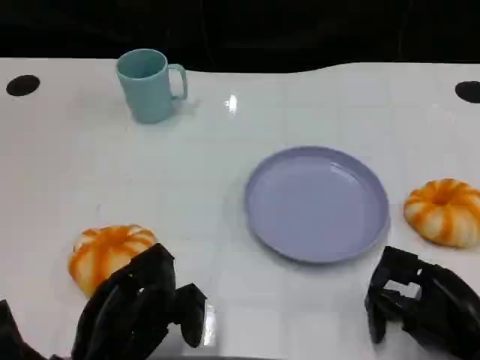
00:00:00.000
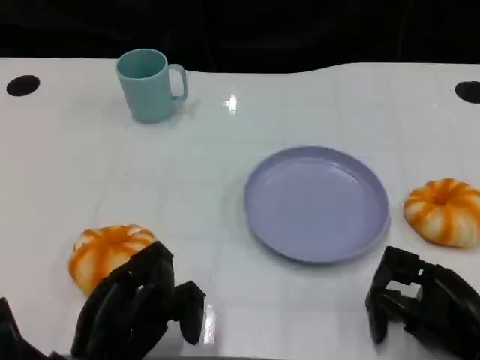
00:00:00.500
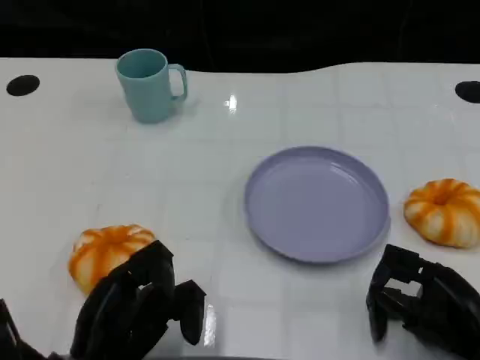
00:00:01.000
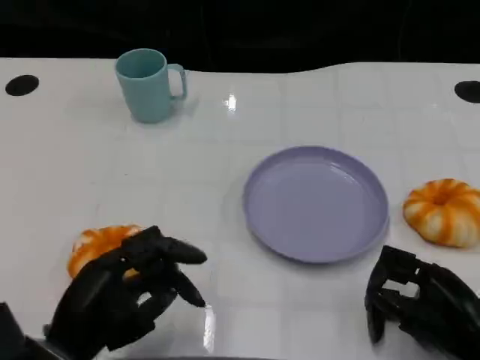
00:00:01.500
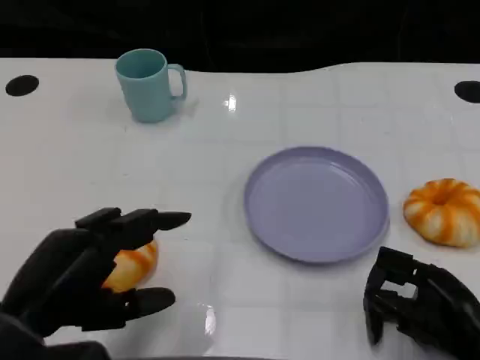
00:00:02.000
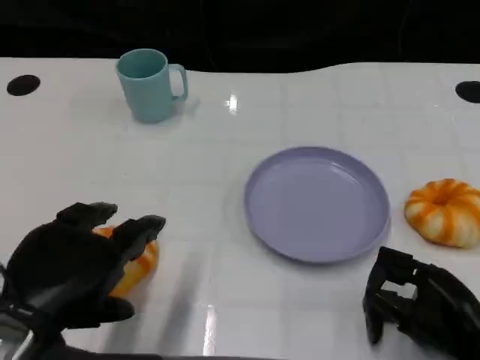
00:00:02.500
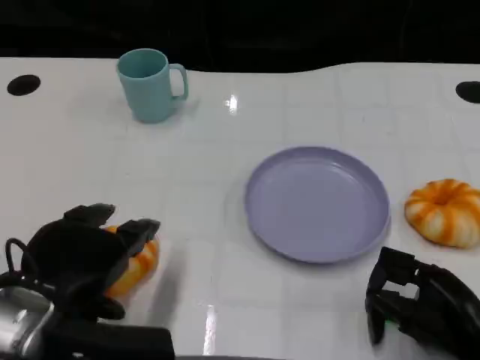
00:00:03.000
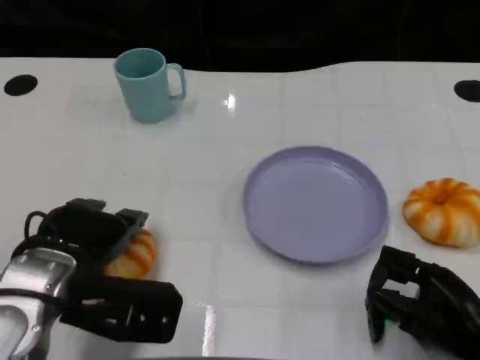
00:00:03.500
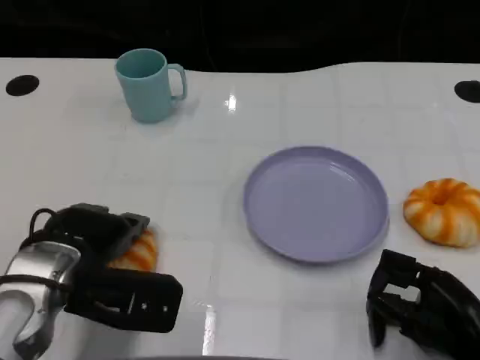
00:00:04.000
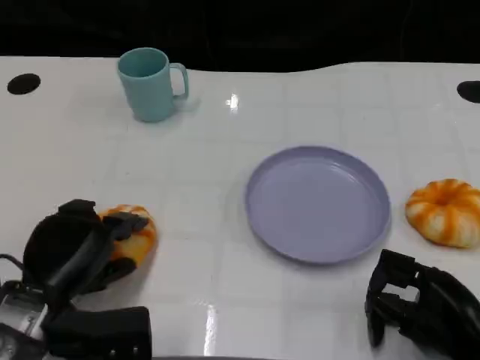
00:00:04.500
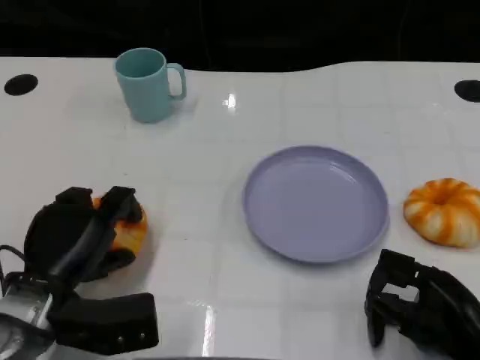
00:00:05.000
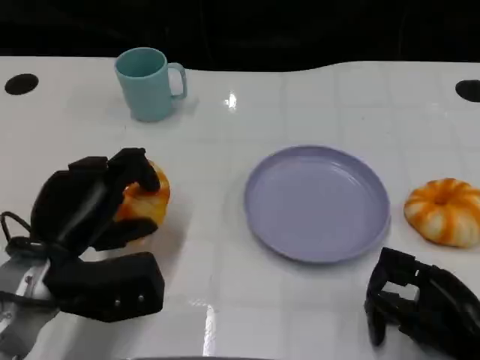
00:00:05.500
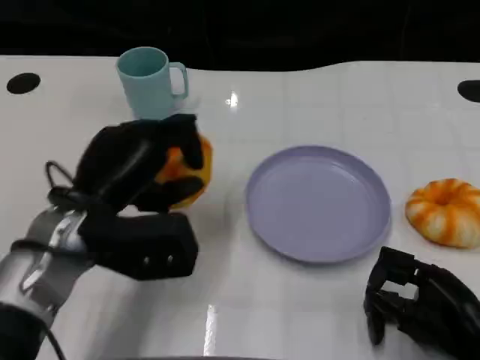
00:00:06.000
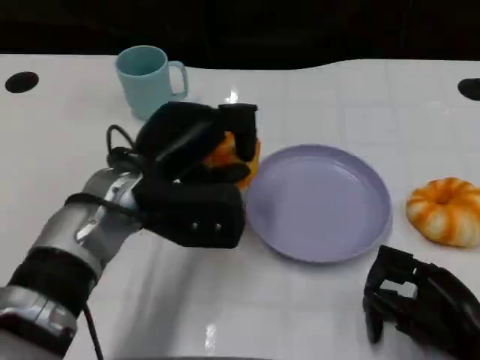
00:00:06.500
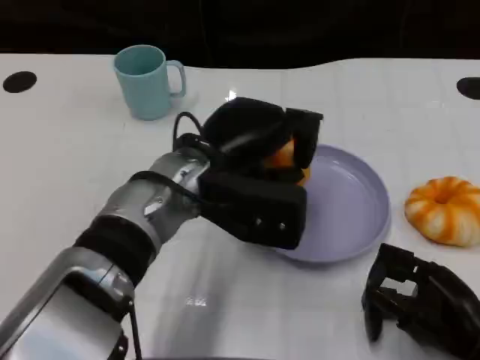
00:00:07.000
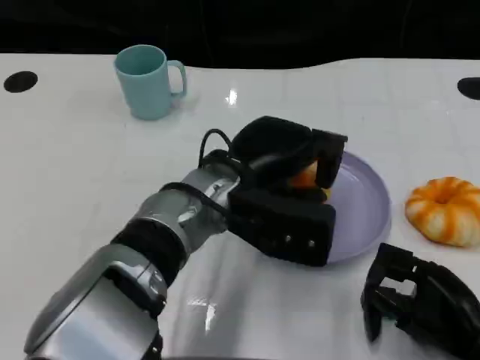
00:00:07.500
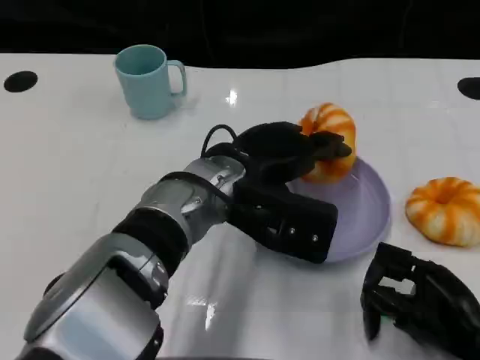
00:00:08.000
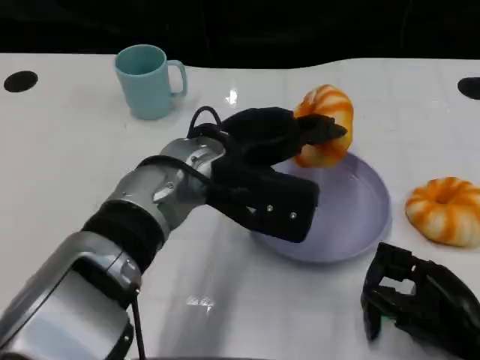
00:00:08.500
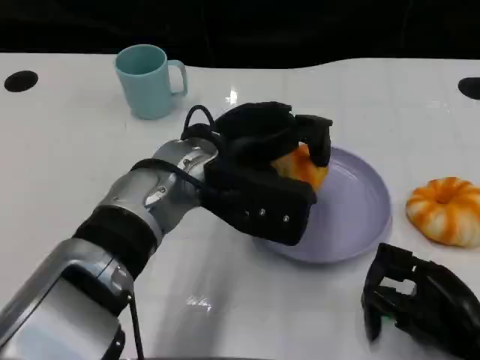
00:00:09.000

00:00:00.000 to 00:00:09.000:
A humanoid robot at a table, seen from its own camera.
Task of the whole recording: Grasp the bread from the table and place it into the plate.
00:00:00.000 to 00:00:02.000: The left hand moves upward, about 10 cm.
00:00:02.000 to 00:00:04.500: The left hand heads downward and forward, covering roughly 10 cm.
00:00:04.500 to 00:00:07.000: The left hand goes roughly 20 cm to the right, upward and forward.
00:00:07.000 to 00:00:09.000: The hands make only small movements.

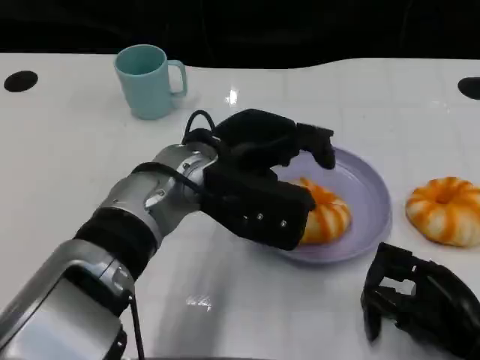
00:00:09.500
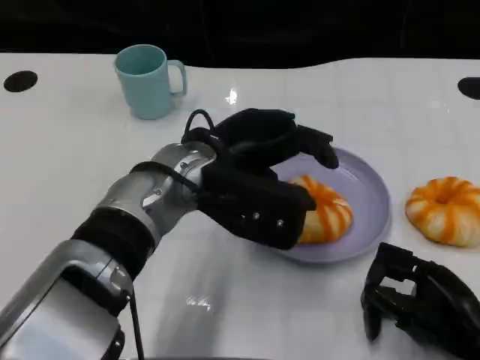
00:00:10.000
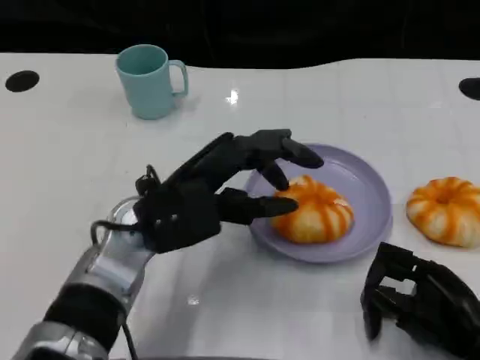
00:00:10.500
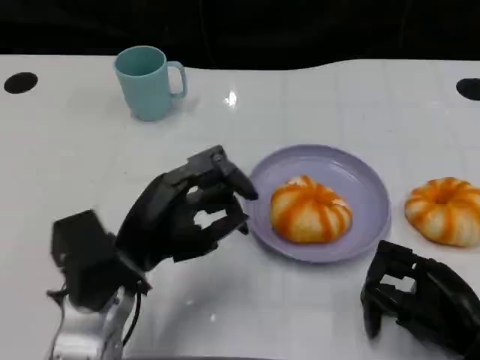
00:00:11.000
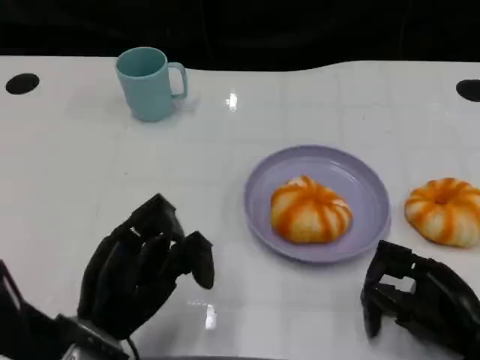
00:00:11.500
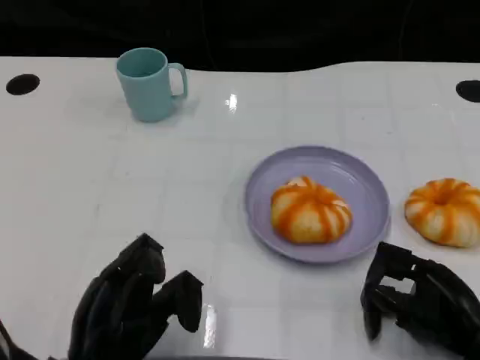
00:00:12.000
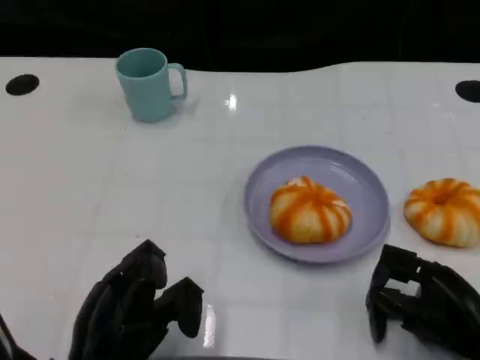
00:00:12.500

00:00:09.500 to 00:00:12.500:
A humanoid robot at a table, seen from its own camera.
Task of the whole recording: Grasp the bread from the table and place it into the plate.
00:00:09.500 to 00:00:11.000: The left hand shifts some 15 cm to the left, backward and downward.
00:00:11.000 to 00:00:12.500: The left hand heads backward and downward, covering some 10 cm.

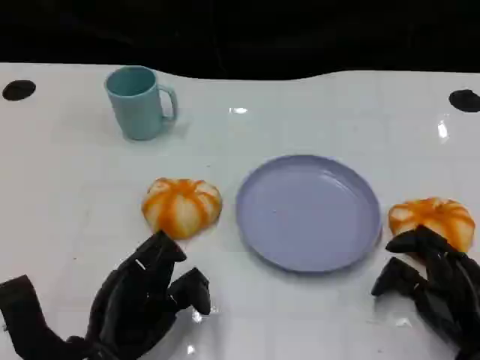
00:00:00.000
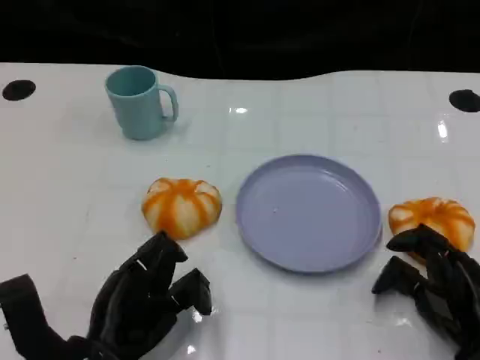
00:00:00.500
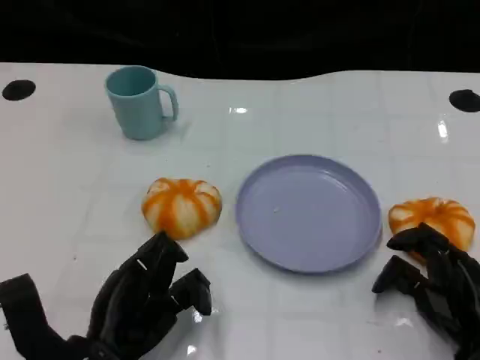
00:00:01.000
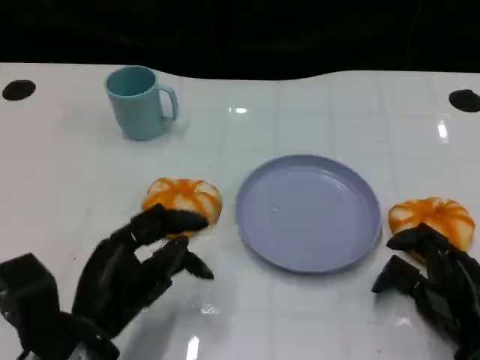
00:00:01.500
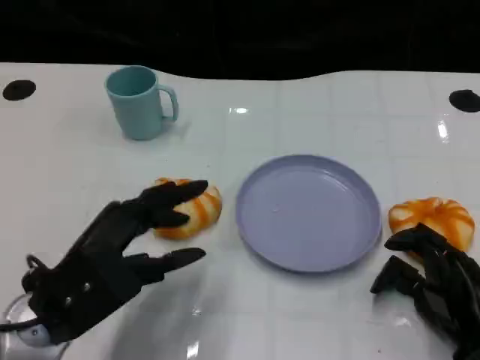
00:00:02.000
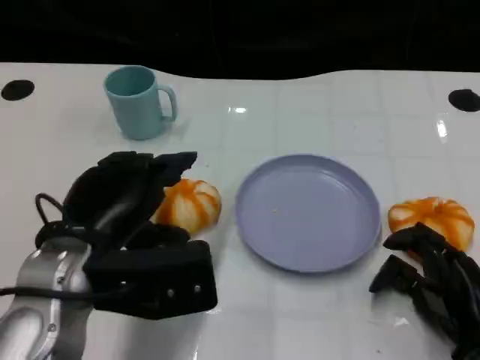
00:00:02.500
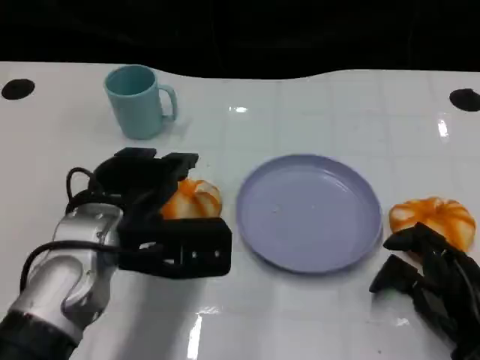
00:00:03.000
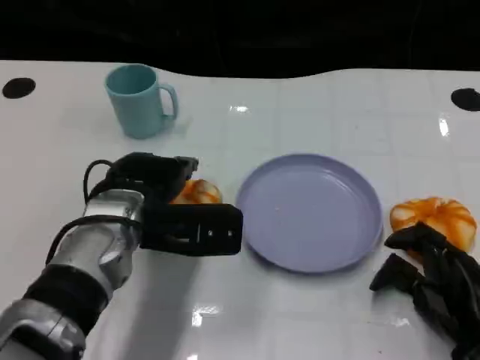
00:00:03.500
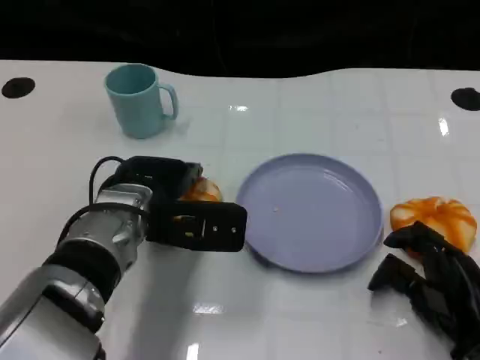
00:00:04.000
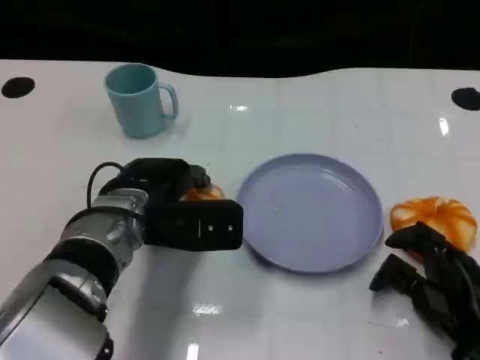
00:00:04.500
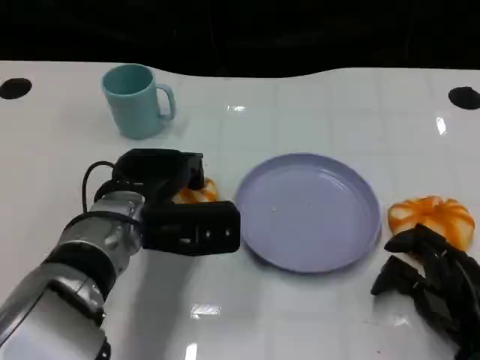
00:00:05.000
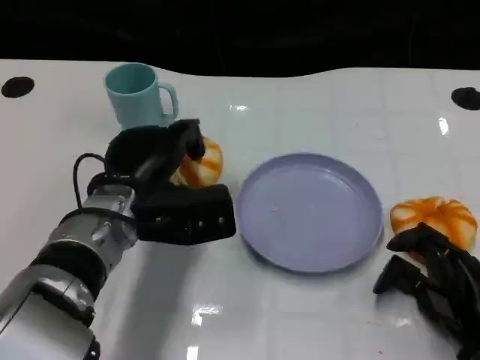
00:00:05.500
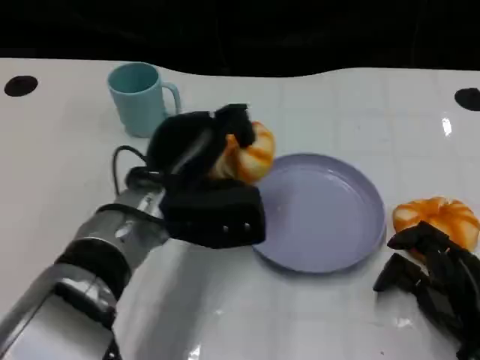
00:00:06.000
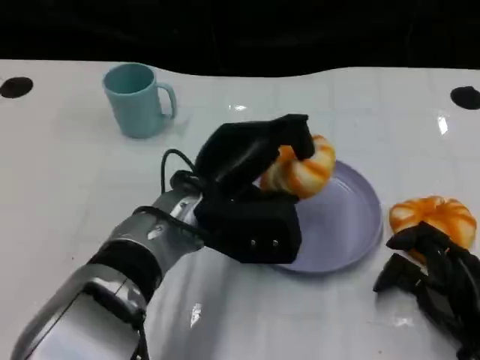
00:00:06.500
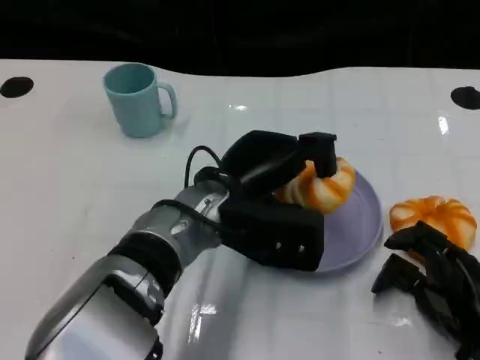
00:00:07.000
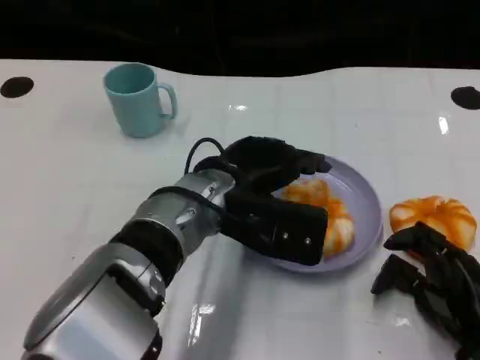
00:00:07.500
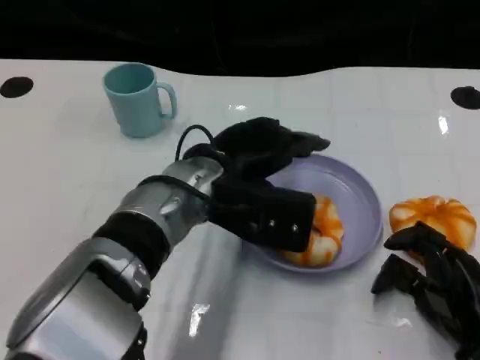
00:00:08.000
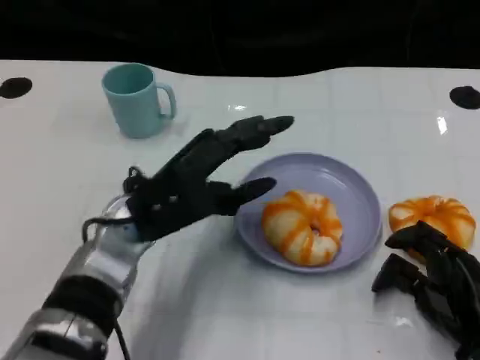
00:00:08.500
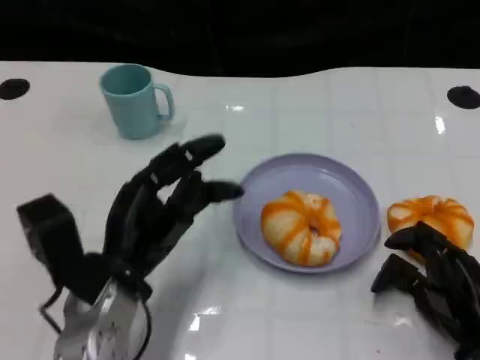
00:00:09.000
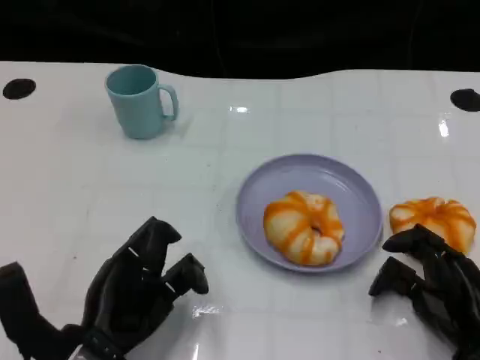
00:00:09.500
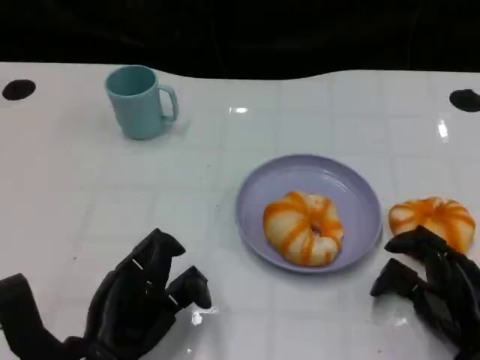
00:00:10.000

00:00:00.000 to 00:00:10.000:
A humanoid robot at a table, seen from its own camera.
Task of the whole recording: Grasp the bread from the table and place it into the plate.
00:00:00.000 to 00:00:02.000: The left hand heads upward, covering roughly 10 cm.
00:00:02.000 to 00:00:04.000: The left hand is displaced forward and to the right by some 15 cm.
00:00:08.000 to 00:00:10.000: The left hand heads backward, to the left and downward, covering approximately 20 cm.
